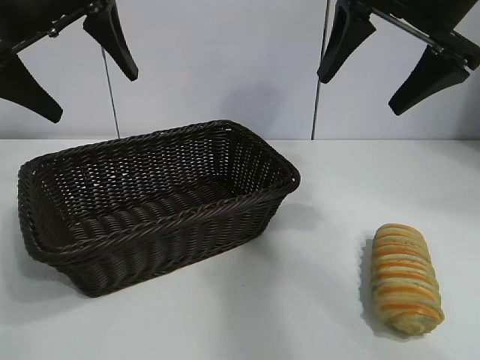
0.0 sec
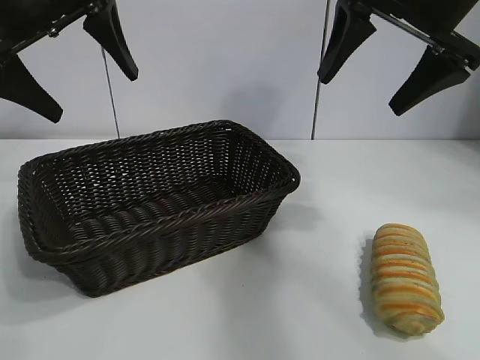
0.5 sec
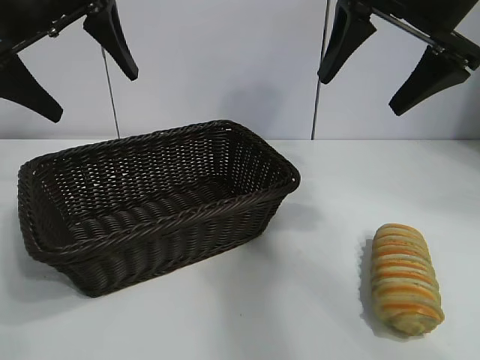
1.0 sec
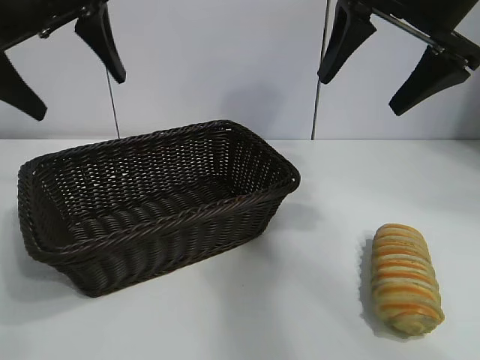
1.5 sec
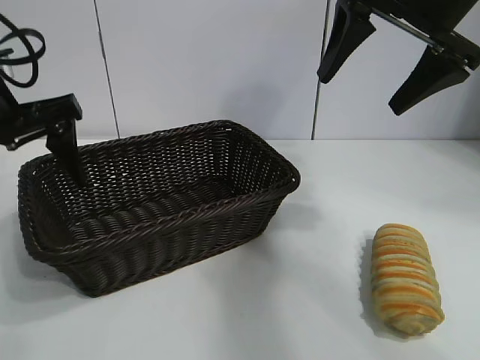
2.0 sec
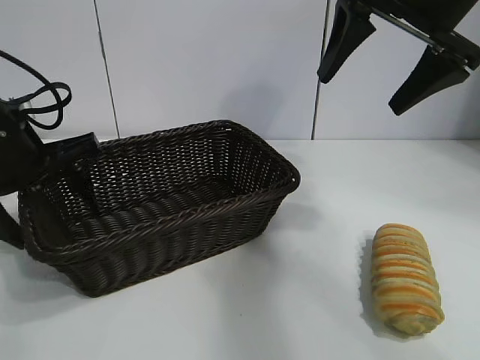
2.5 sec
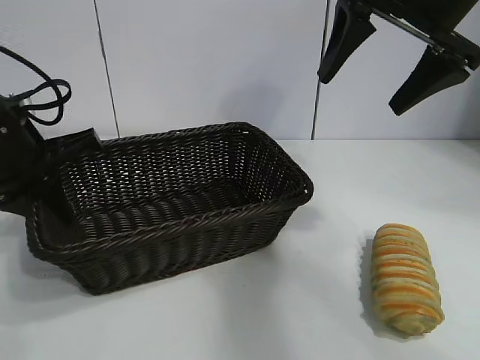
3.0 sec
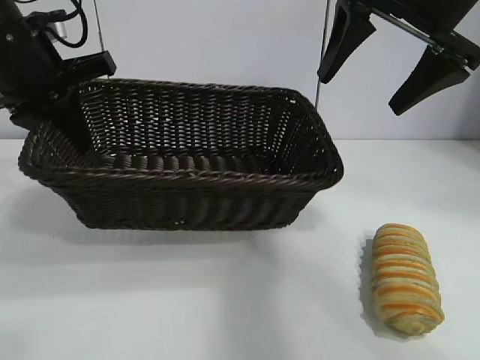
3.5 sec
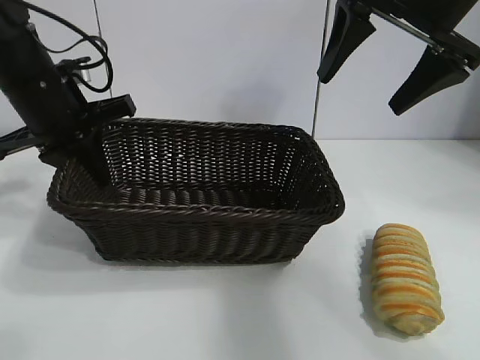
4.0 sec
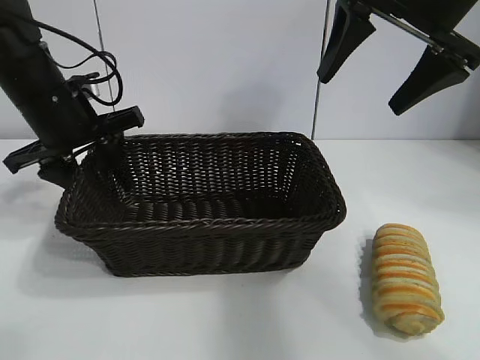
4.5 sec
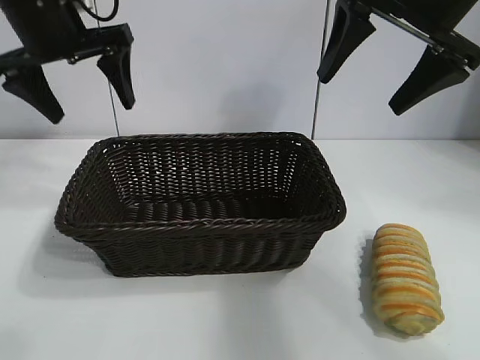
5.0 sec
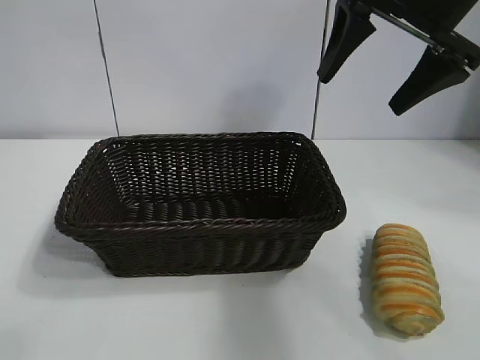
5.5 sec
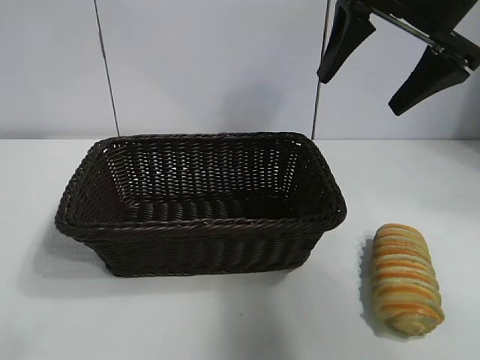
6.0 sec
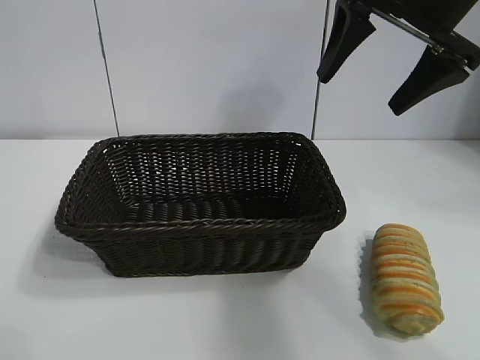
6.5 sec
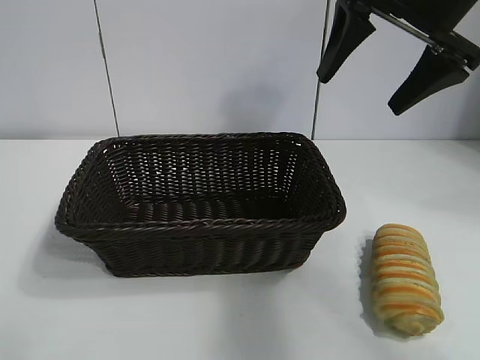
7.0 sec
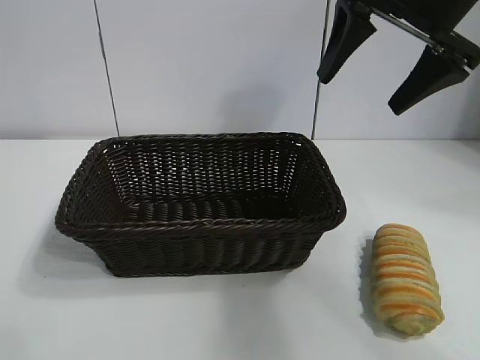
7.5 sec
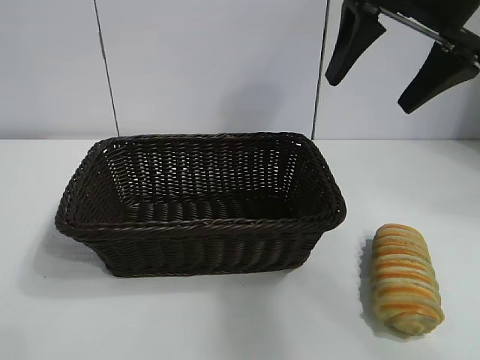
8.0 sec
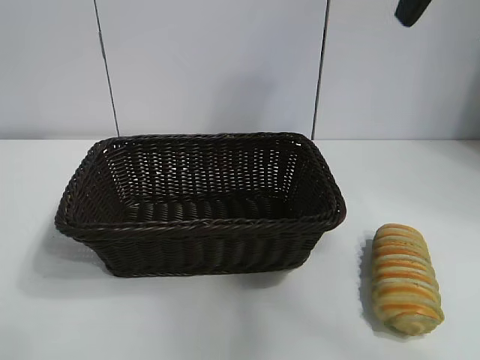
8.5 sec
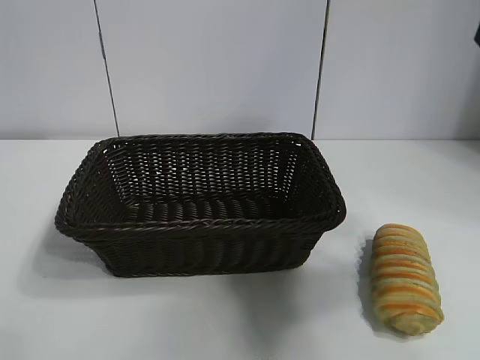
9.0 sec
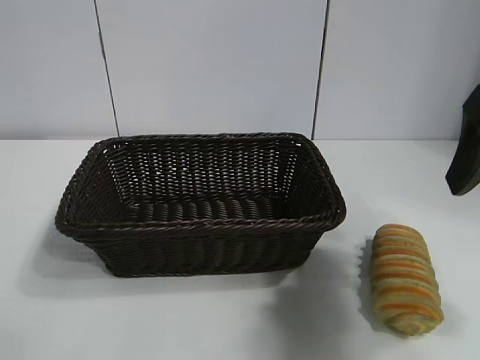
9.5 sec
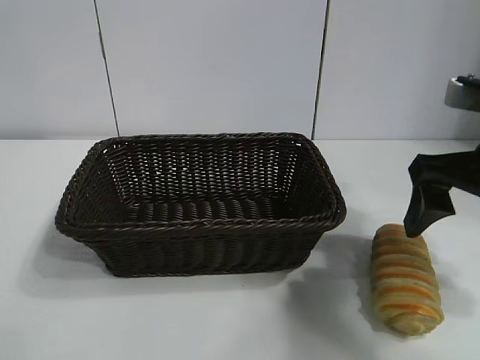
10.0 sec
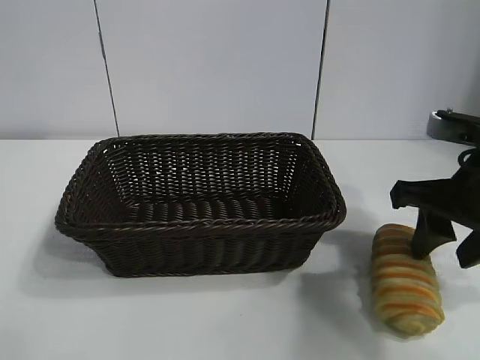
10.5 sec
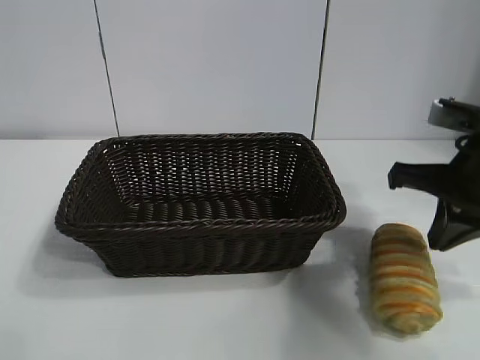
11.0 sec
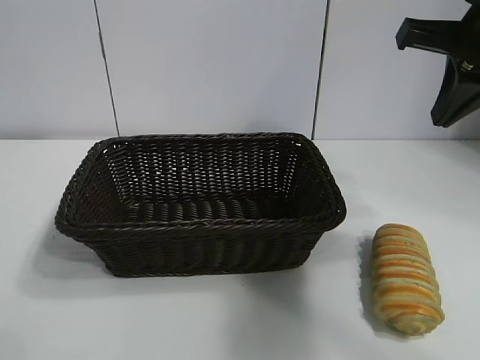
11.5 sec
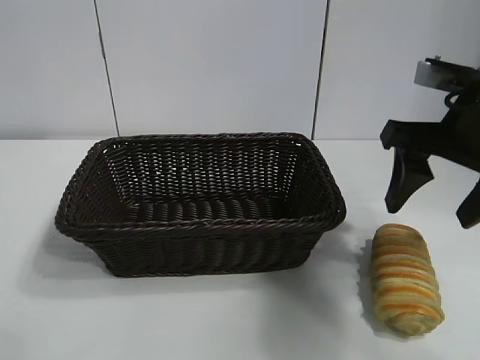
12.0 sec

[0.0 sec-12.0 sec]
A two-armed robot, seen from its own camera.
Task of the whole recording: pick up the long bread and put it into the basket.
Step, 1.5 sec to 3.0 sec: Grasp the basket with the left gripper.
Step, 3.5 sec to 4.5 sec: Place the basket in the center of the table with the left gripper.

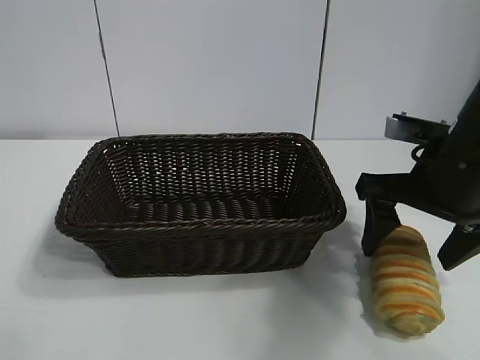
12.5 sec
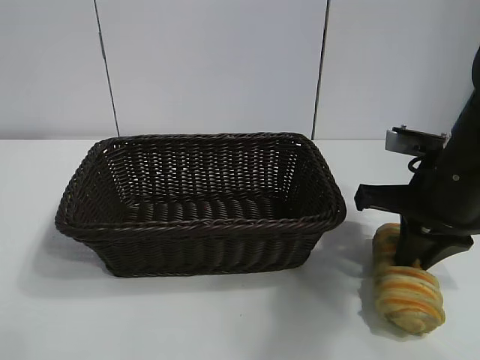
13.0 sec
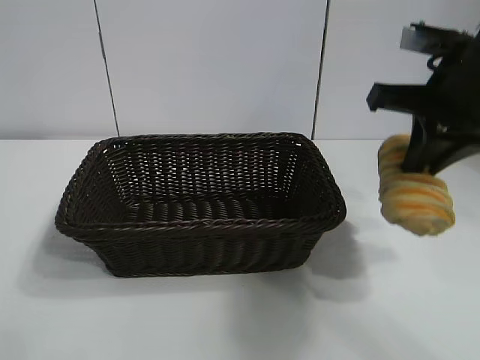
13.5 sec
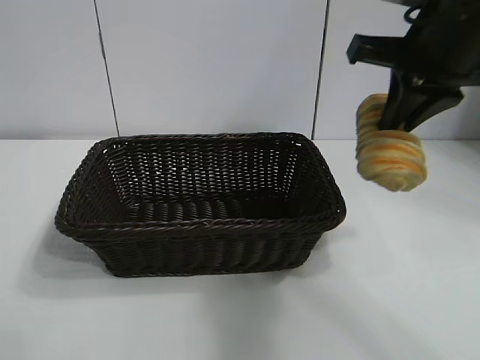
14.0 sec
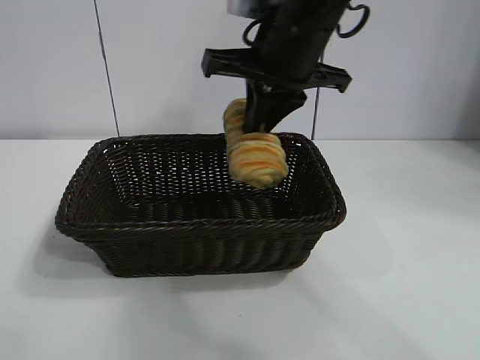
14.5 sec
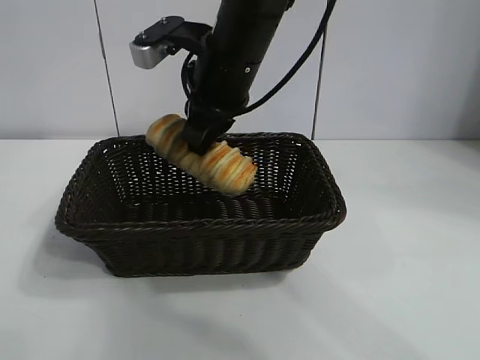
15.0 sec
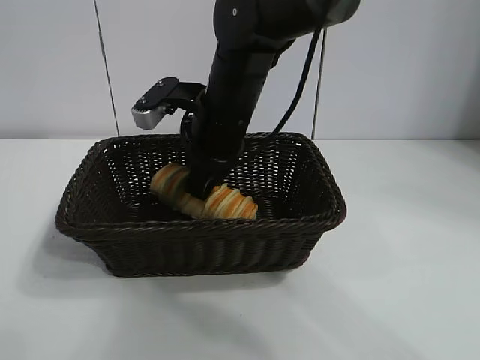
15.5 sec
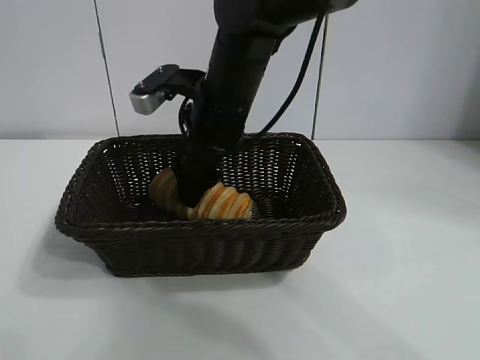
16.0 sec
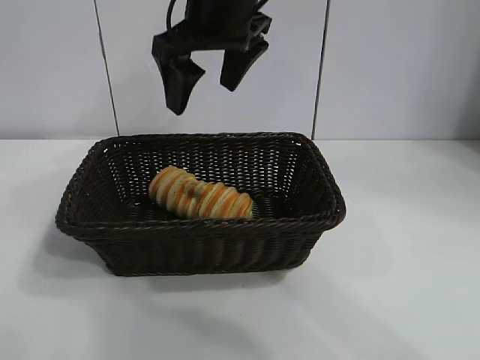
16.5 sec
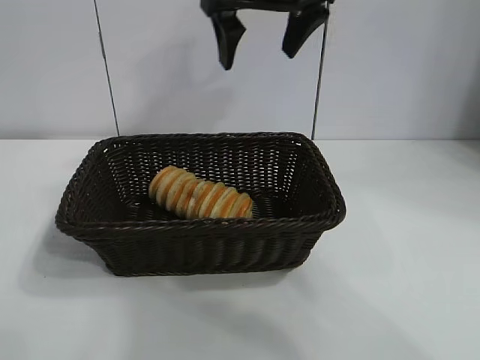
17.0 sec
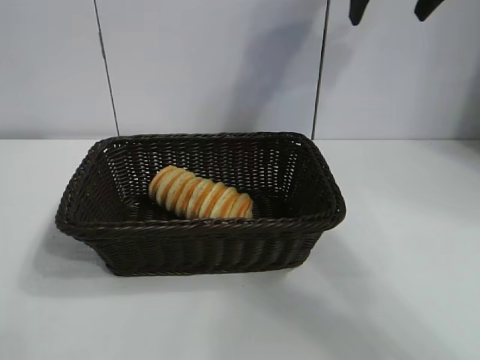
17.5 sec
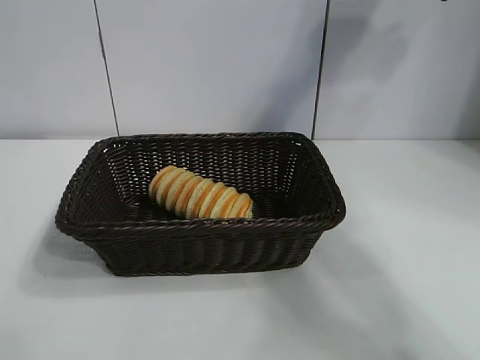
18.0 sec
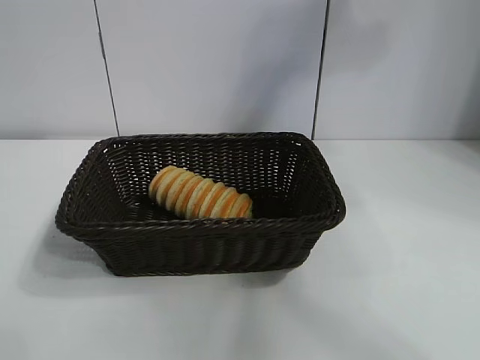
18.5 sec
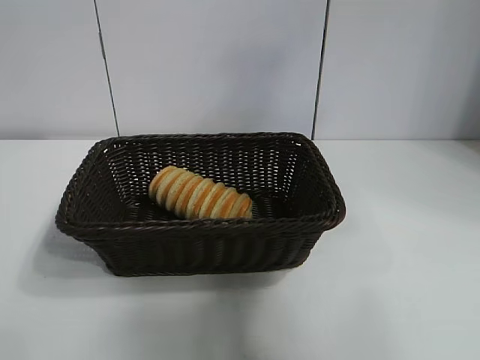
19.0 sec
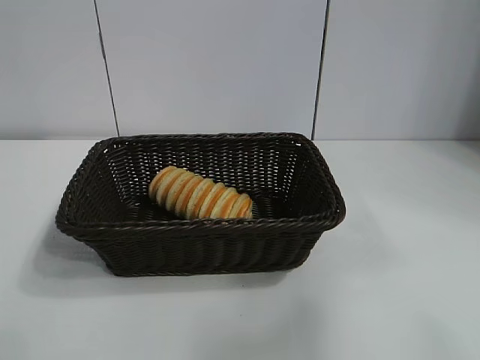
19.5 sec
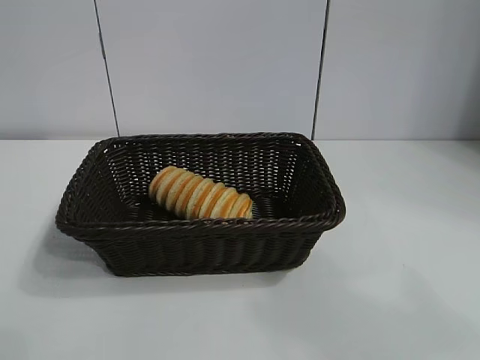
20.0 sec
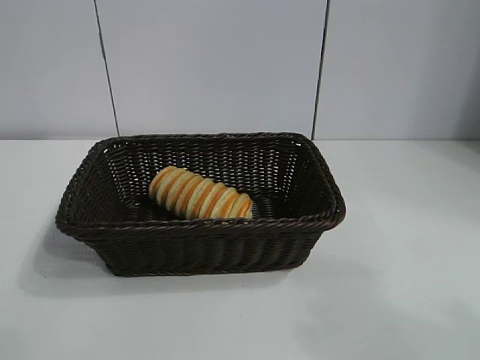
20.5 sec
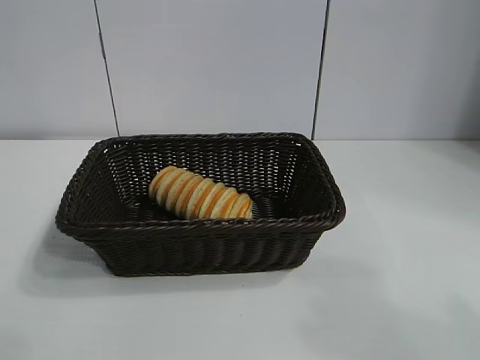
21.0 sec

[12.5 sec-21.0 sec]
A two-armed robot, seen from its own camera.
Task of the whole recording: pick up the long bread and put it into the basket.
Step, 13.5 sec to 16.0 sec: Place the long bread in the basket with right gripper.

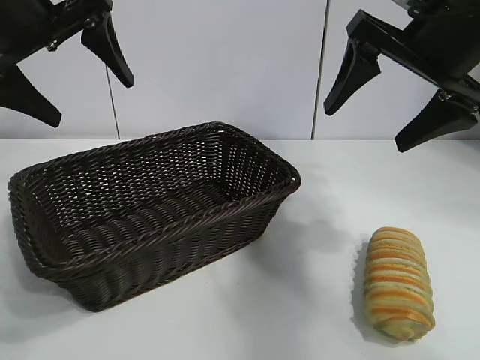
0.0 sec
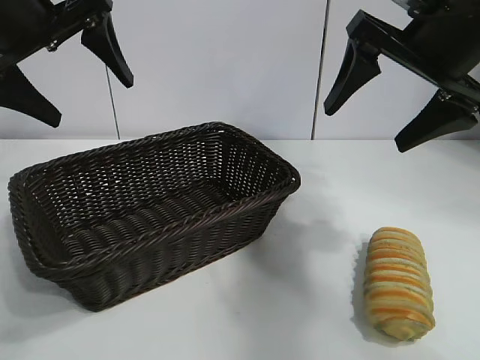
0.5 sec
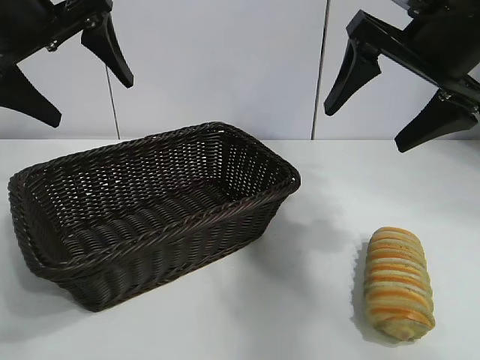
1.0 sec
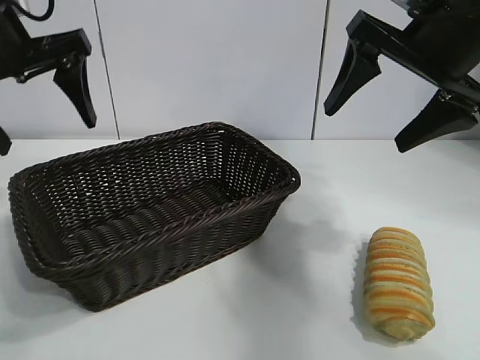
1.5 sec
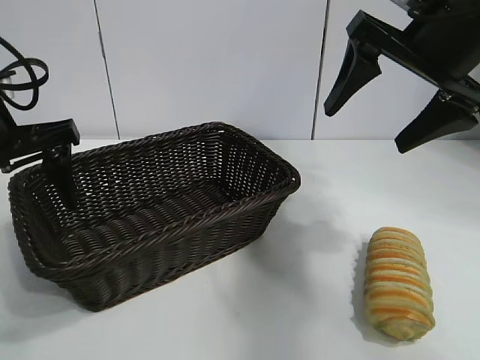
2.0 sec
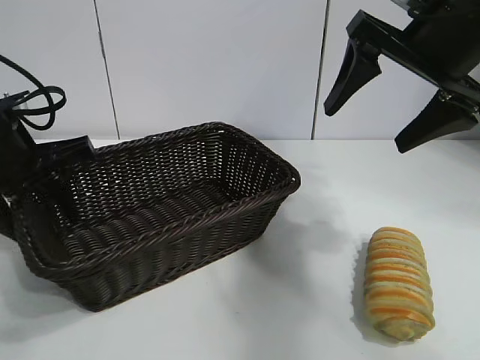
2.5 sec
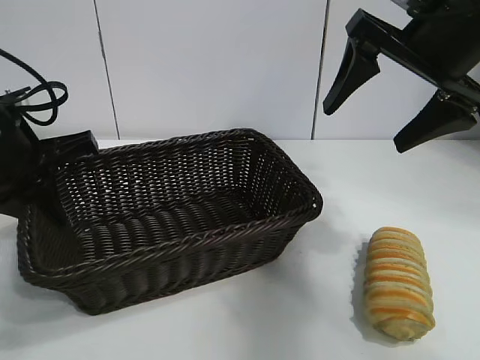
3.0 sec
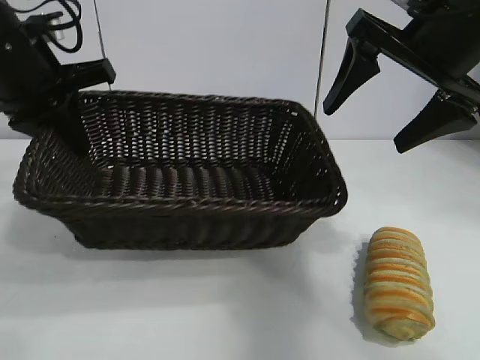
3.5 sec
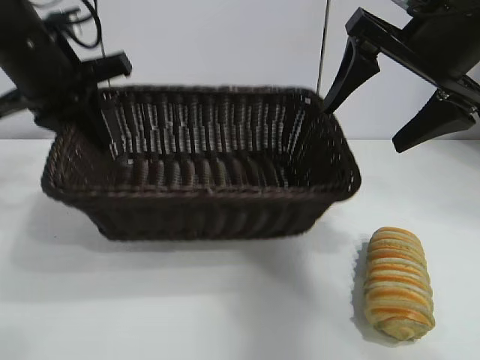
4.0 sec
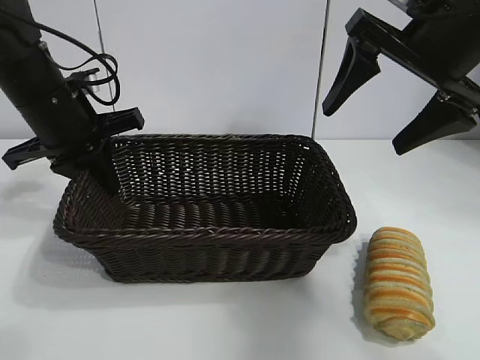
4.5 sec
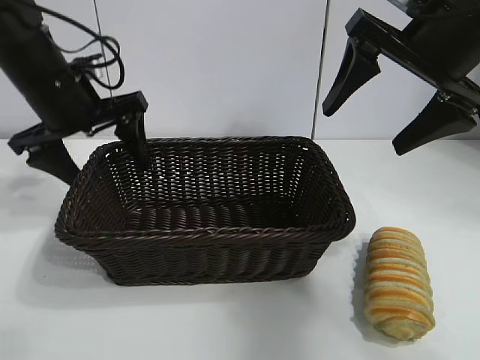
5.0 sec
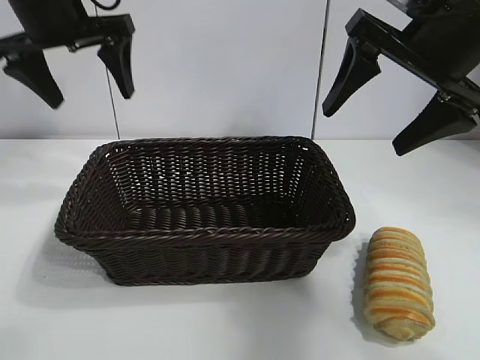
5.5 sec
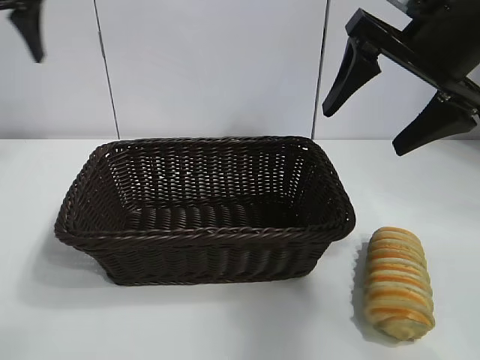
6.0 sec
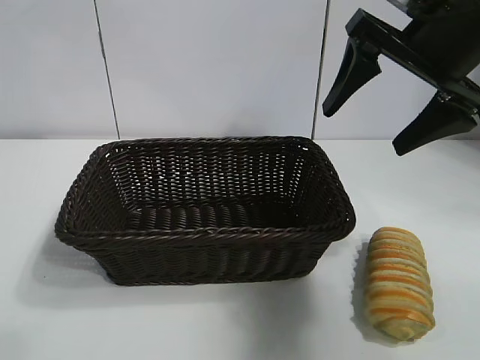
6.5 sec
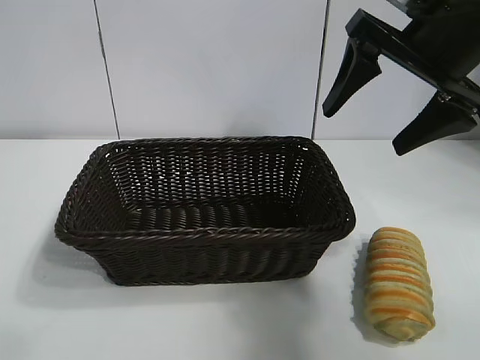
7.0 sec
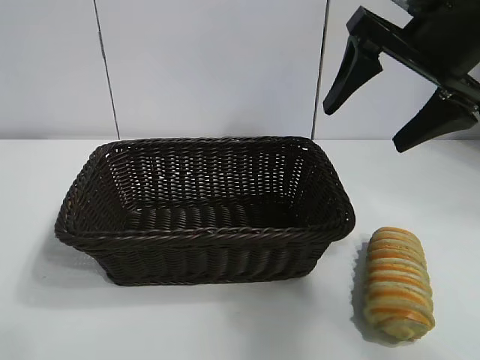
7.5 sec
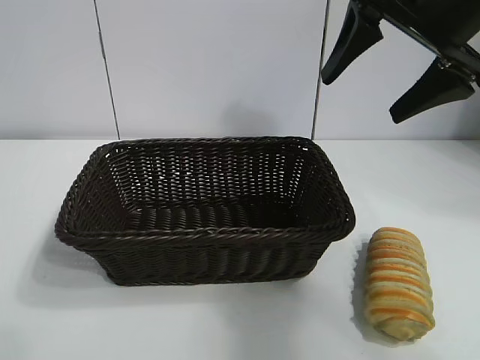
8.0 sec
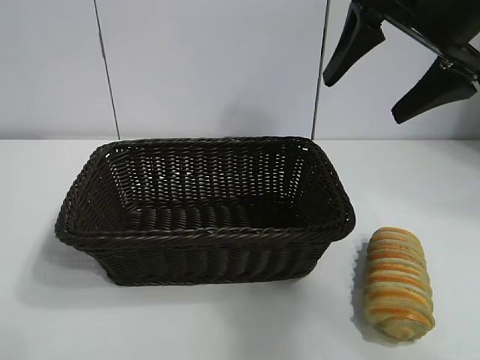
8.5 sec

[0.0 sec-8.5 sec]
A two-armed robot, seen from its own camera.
Task of the whole recording: pick up the long bread and put it into the basket.
Step, 1.5 sec to 2.5 sec: Grasp the basket with the left gripper.
Step, 3.0 sec to 4.5 sec: Place the basket in the center of the table with the left gripper.
